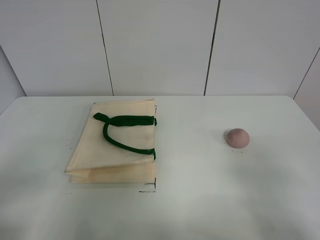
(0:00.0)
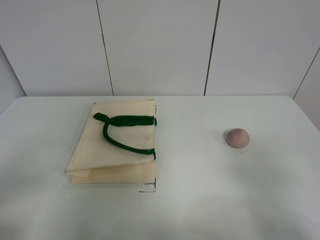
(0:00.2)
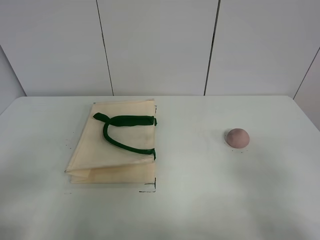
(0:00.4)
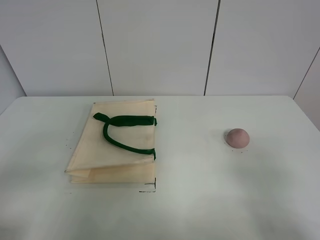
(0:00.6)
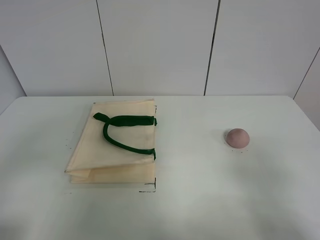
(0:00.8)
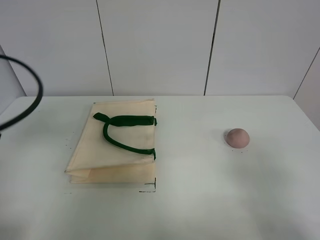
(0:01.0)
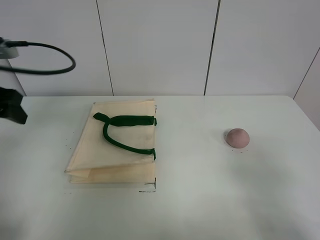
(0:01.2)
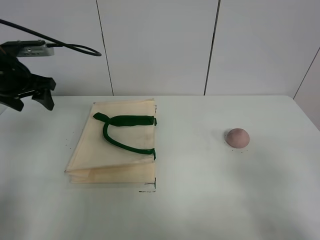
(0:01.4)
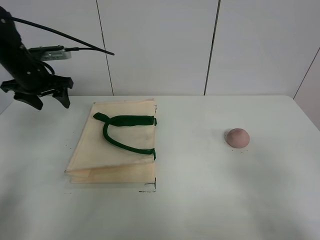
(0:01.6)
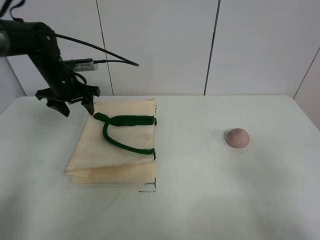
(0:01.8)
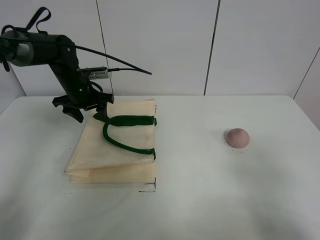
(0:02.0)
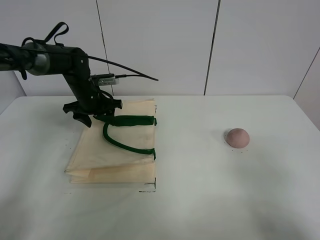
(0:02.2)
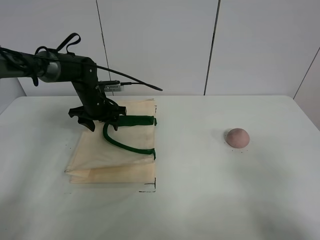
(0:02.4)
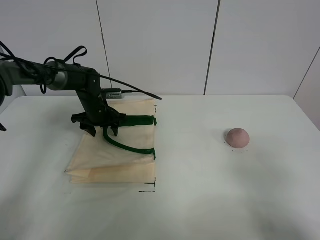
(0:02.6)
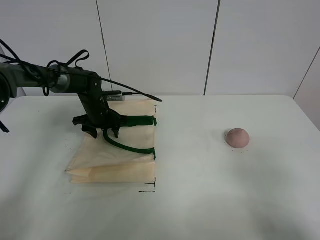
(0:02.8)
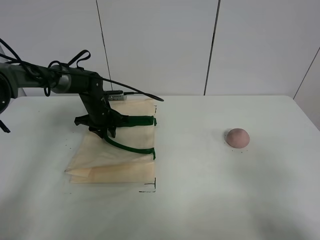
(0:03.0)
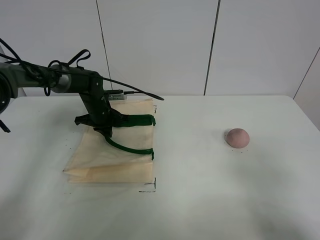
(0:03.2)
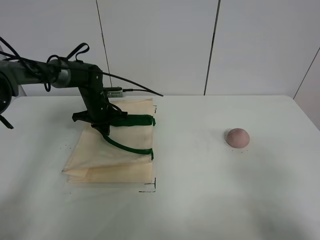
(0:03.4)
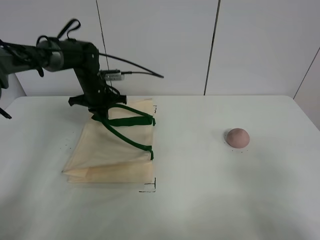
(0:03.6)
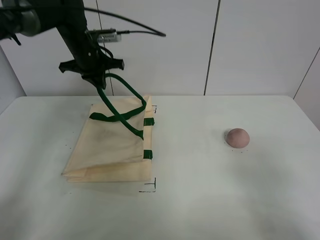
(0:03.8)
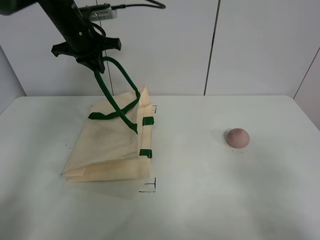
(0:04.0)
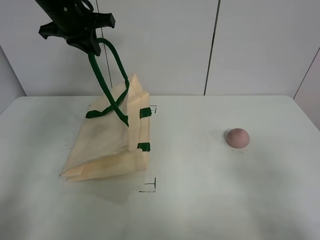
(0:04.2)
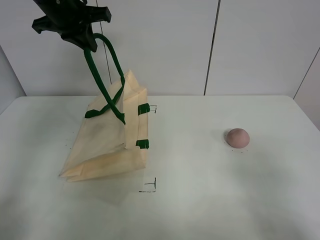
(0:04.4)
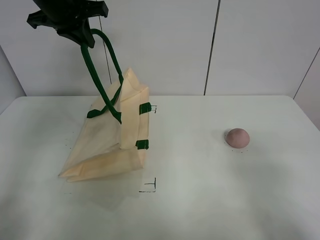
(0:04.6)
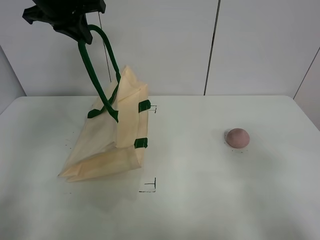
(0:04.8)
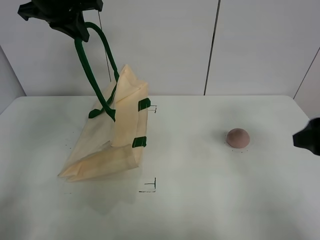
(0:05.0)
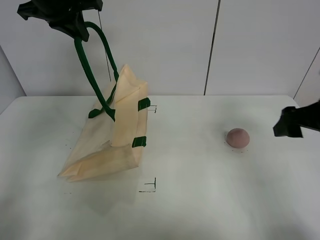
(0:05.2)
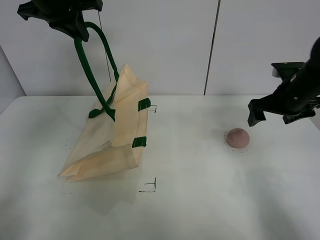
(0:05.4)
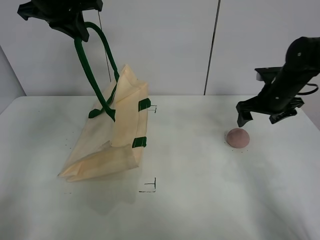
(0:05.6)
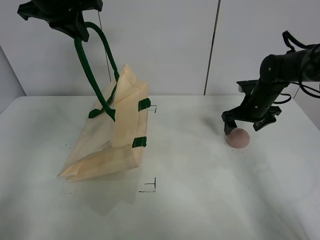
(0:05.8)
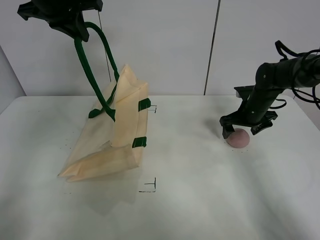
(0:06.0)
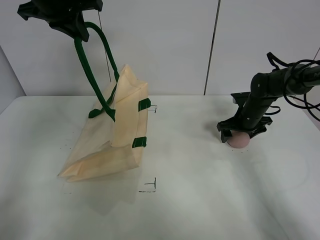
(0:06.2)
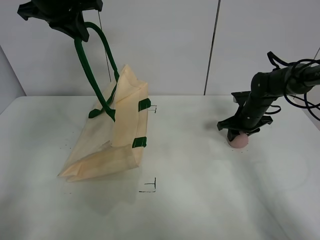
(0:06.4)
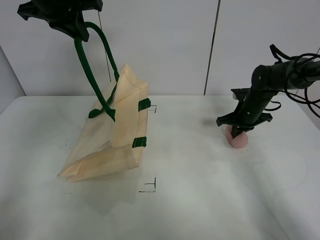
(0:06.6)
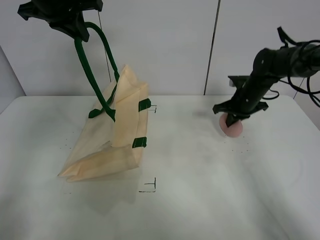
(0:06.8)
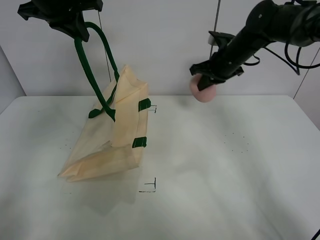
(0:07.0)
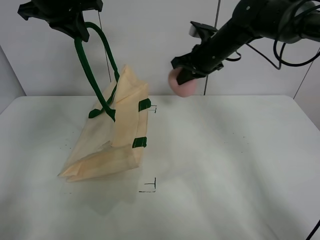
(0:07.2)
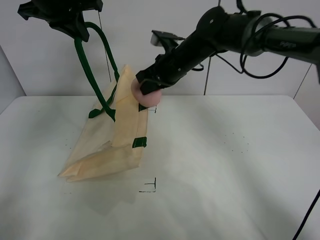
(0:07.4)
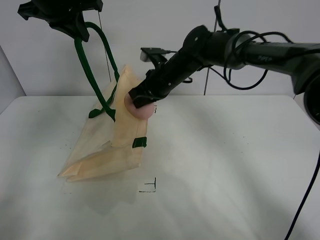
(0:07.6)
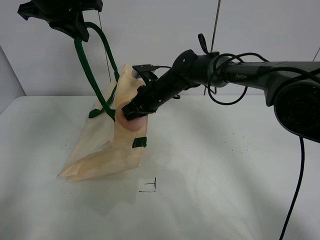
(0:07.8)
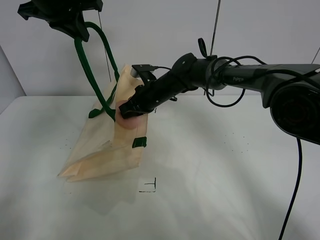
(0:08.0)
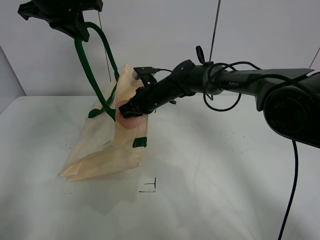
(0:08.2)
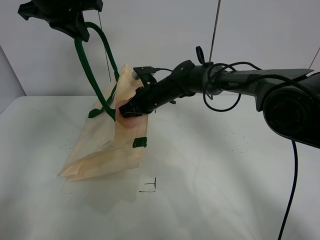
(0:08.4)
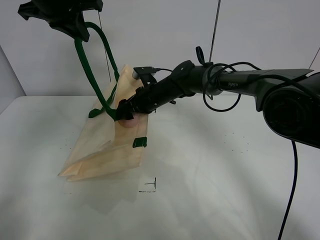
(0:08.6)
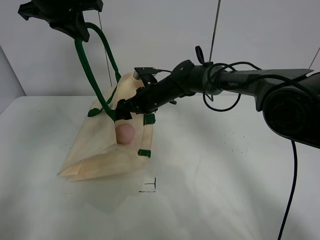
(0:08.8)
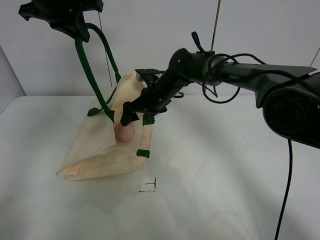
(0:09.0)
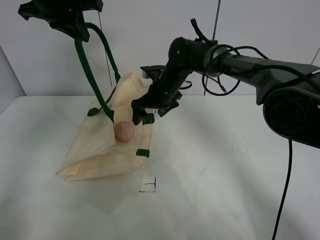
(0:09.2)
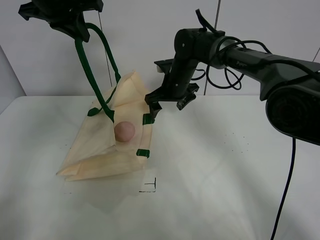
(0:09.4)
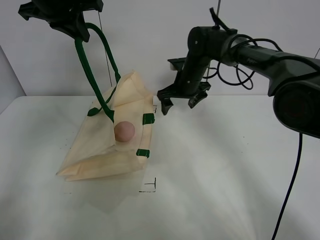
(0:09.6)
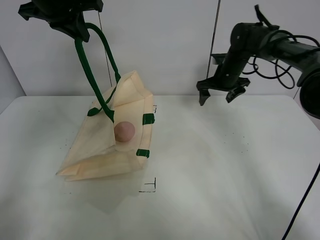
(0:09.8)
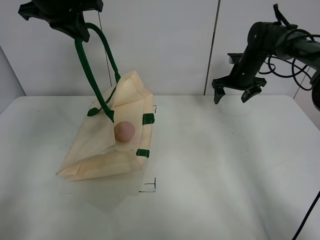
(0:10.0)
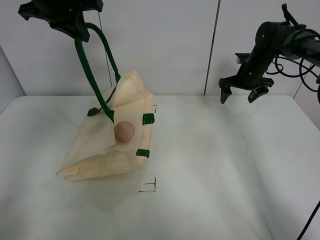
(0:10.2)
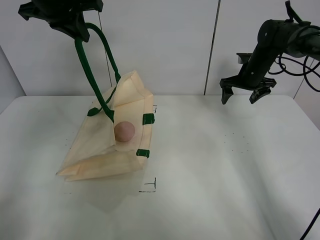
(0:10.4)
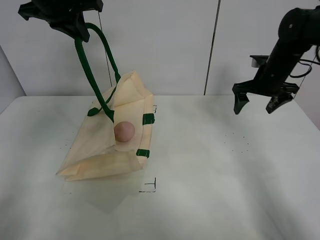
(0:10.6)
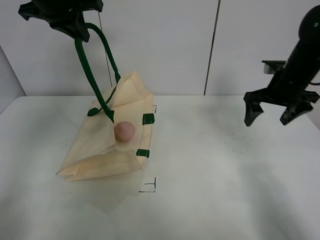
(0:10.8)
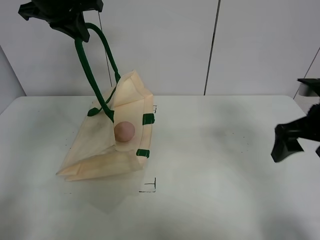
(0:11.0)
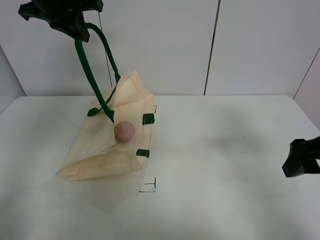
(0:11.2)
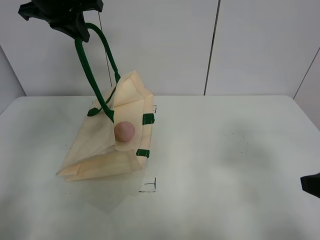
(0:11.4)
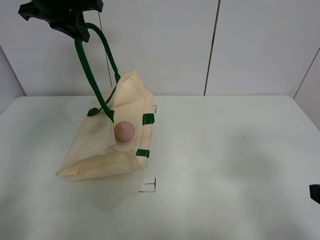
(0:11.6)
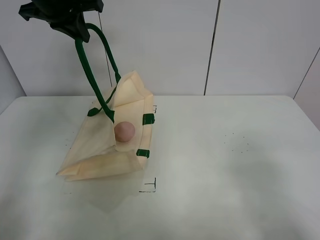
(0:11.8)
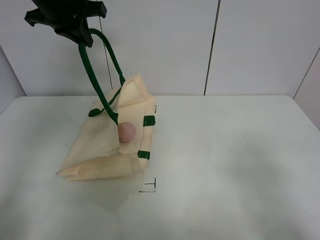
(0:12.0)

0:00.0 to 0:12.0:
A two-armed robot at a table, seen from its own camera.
Task of the whole recording: open the white linen bag and put the peach in the bag.
Step, 0:00.0 to 0:04.4: Lift the handbag with left gripper.
Step, 0:04.6 to 0:06.4: Grasp the peach with right gripper.
Step, 0:06.6 to 0:08.8: Place the peach in the handbag with right gripper.
0:01.6 to 0:03.0: The left gripper is displaced downward, to the right and forward by some 25 cm.
0:03.0 to 0:04.4: The left gripper heads upward, covering roughly 30 cm, and closes.
0:04.4 to 0:06.0: The right gripper moves forward, roughly 40 cm.
0:06.0 to 0:07.6: The right gripper heads to the left and upward, covering approximately 25 cm, and closes.
0:07.6 to 0:09.0: The right gripper goes some 10 cm downward, and opens.
0:09.0 to 0:10.4: The right gripper travels to the right by about 25 cm.
0:10.4 to 0:12.0: The right gripper shifts about 50 cm backward.

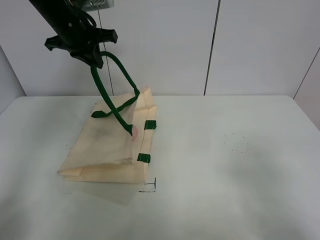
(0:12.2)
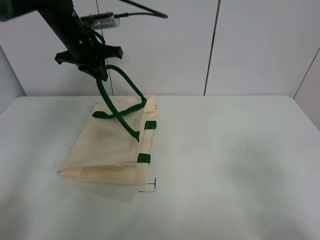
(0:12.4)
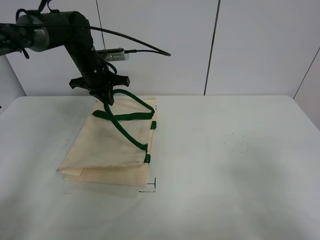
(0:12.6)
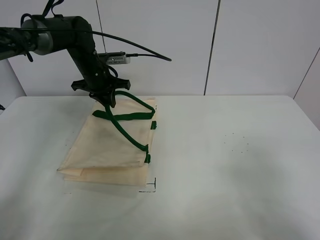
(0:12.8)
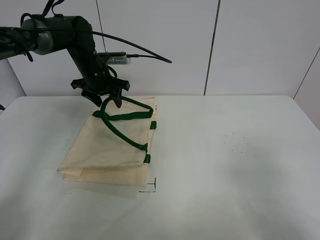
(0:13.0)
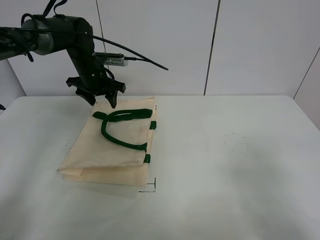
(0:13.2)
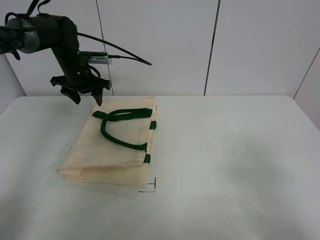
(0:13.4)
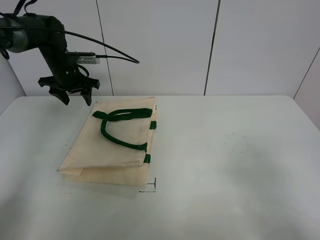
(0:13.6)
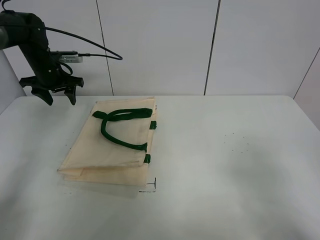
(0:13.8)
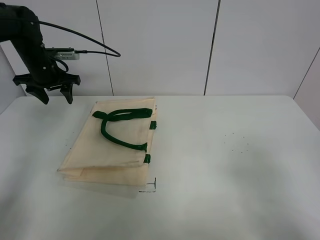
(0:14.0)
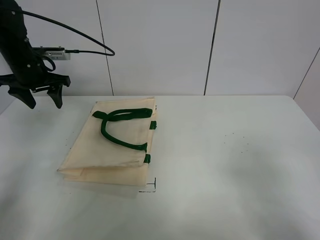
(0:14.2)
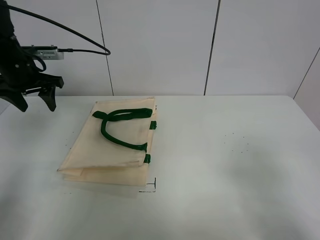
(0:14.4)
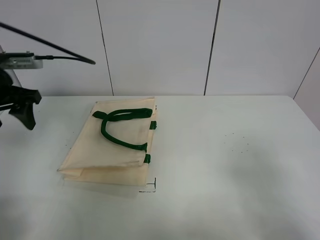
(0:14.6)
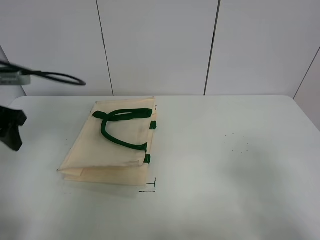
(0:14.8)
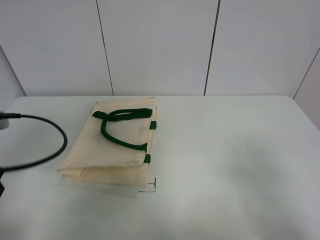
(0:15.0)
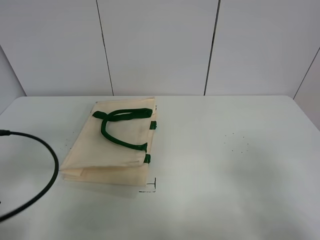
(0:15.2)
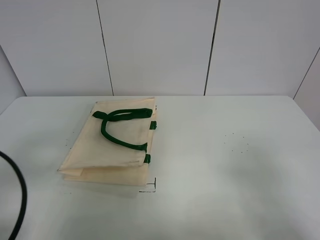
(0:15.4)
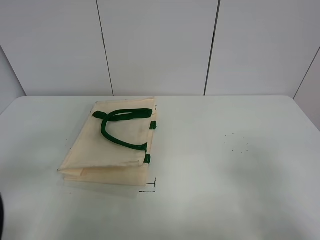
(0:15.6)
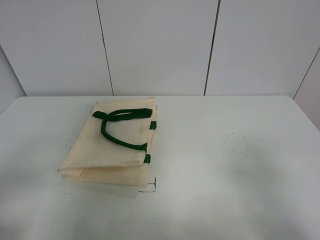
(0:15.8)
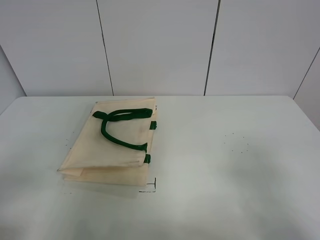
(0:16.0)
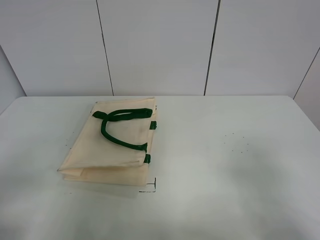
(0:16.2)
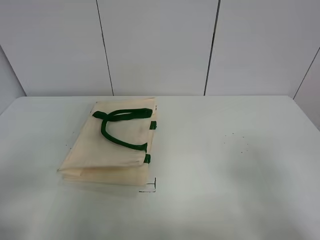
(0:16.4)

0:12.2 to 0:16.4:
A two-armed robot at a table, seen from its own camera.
Task of the whole recording: open the white linen bag and put the peach in the bag.
0:12.2 to 0:13.6: The left gripper heads downward and forward, covering roughly 15 cm, and opens up.
0:13.6 to 0:15.0: The left gripper heads backward, covering some 30 cm.
0:15.0 to 0:16.4: The left gripper moves backward, approximately 20 cm.
